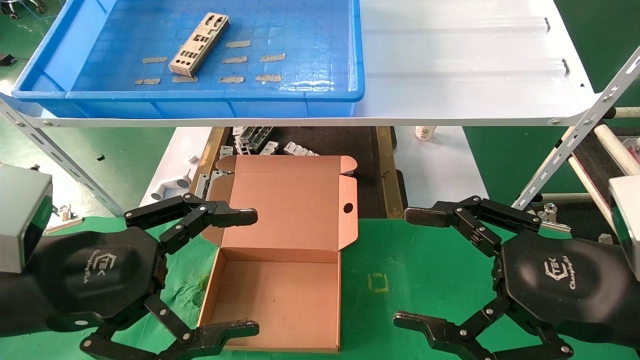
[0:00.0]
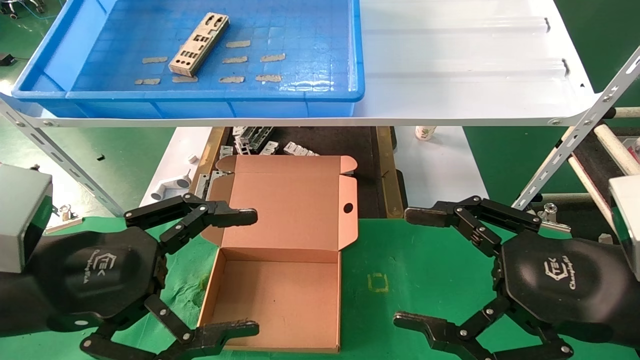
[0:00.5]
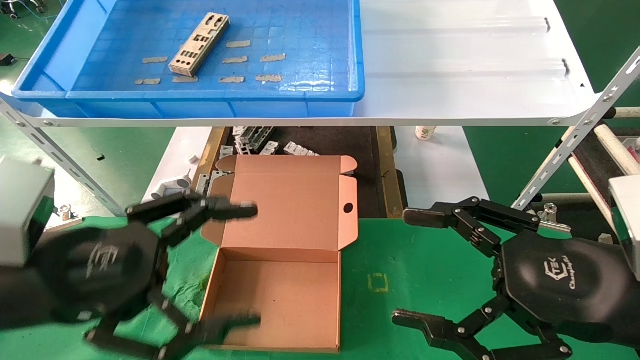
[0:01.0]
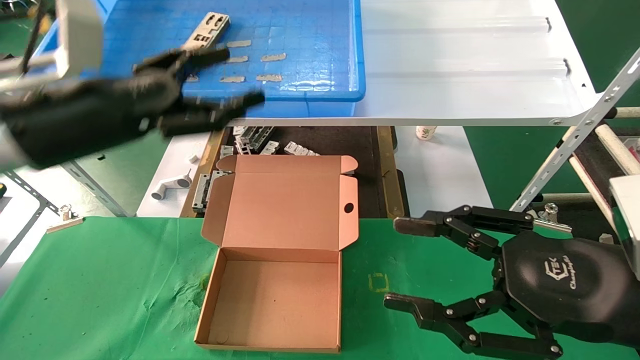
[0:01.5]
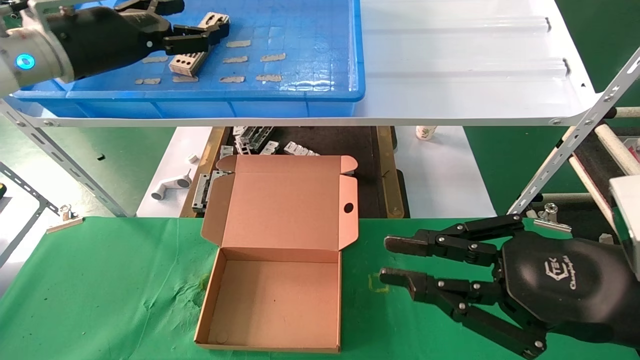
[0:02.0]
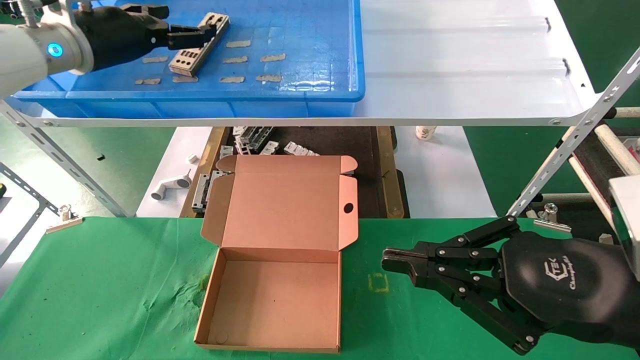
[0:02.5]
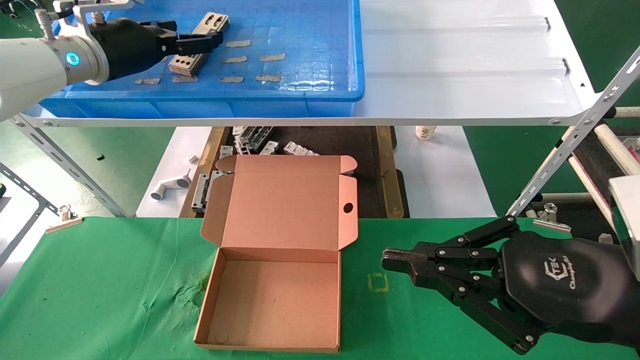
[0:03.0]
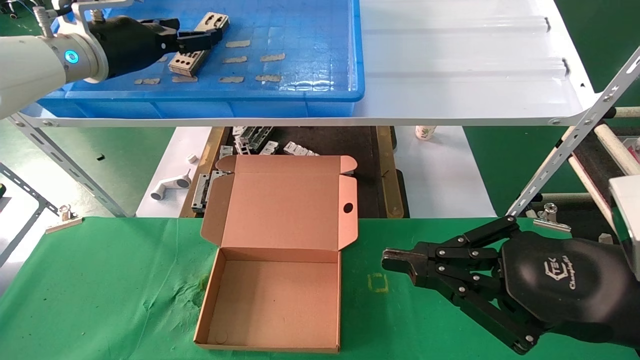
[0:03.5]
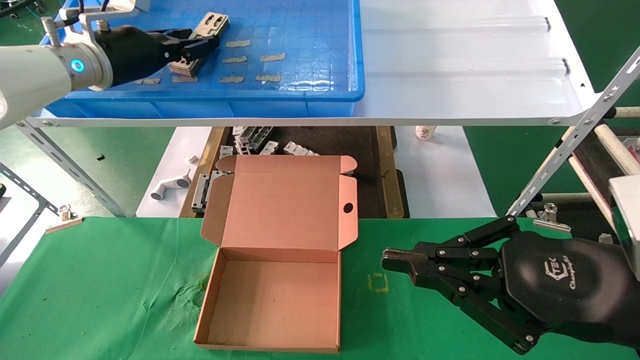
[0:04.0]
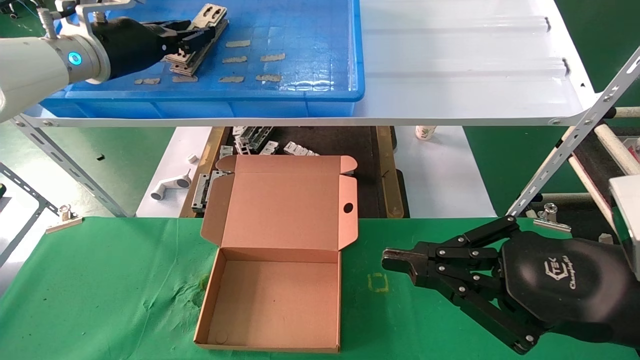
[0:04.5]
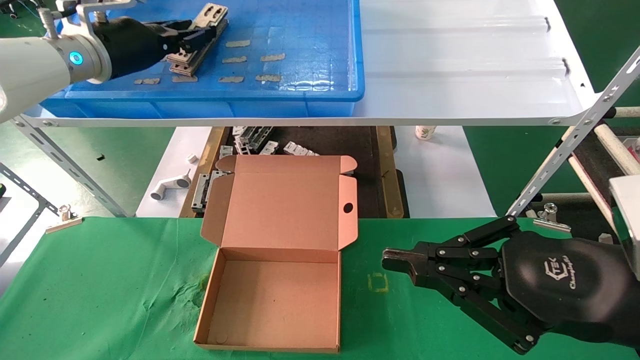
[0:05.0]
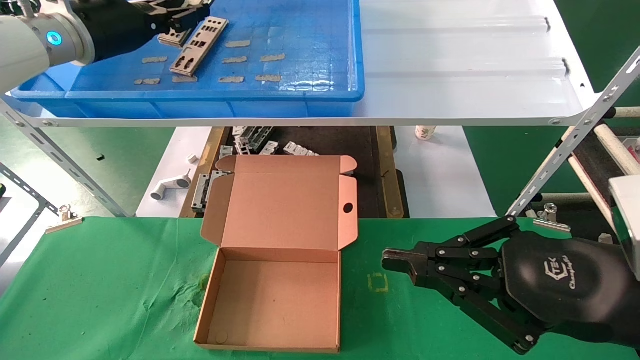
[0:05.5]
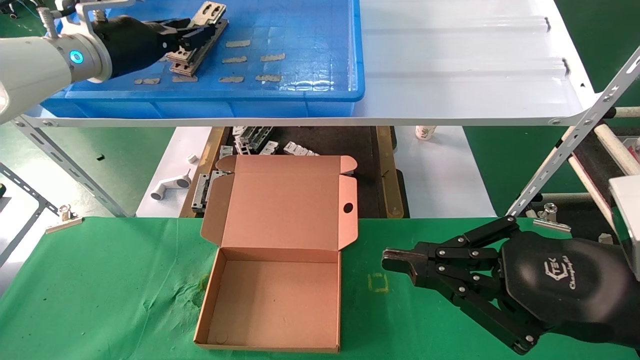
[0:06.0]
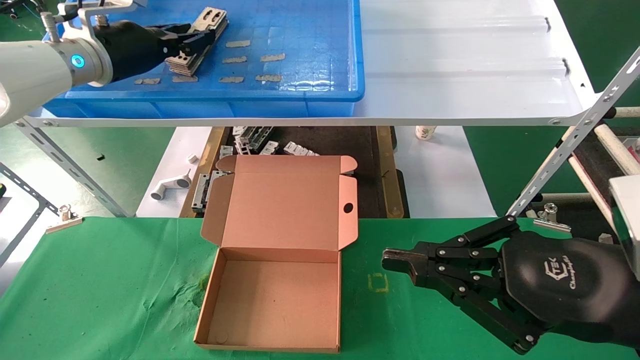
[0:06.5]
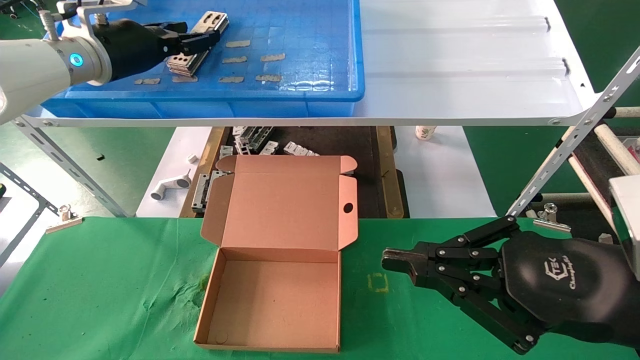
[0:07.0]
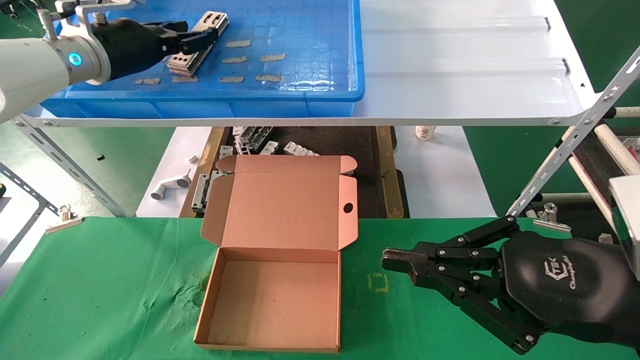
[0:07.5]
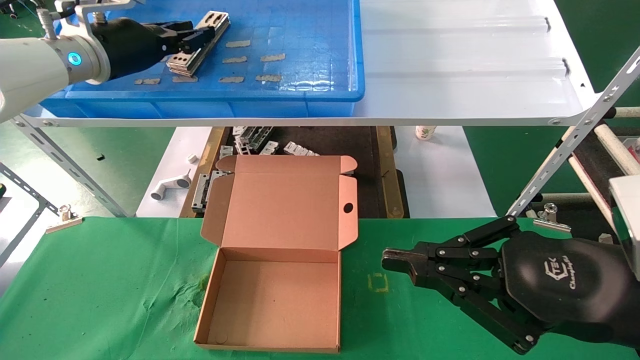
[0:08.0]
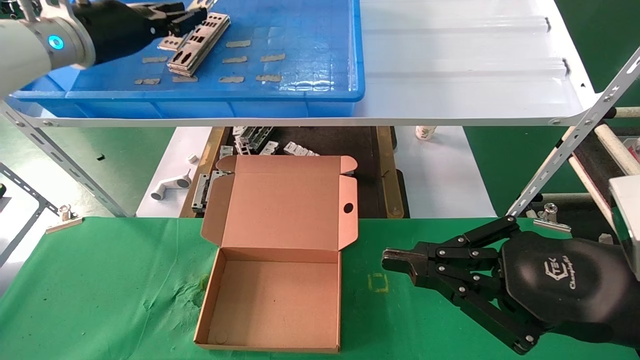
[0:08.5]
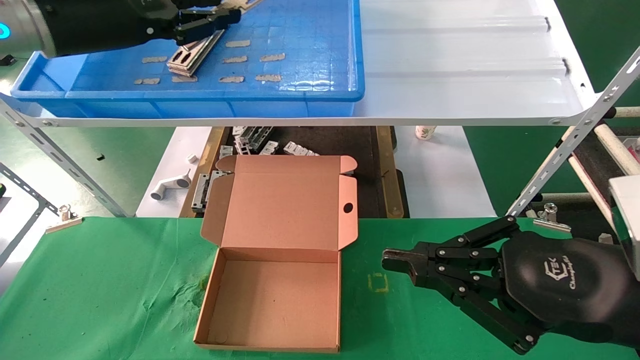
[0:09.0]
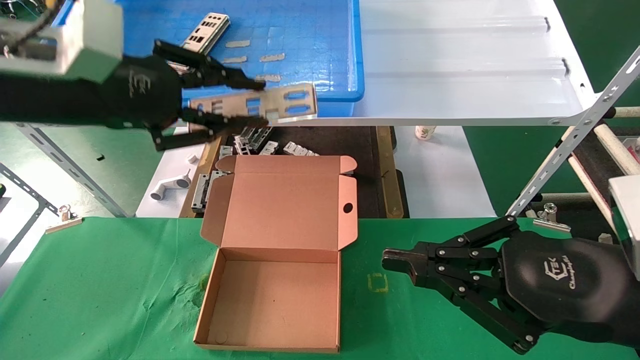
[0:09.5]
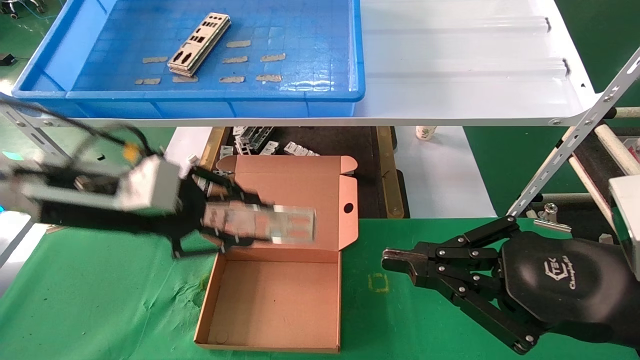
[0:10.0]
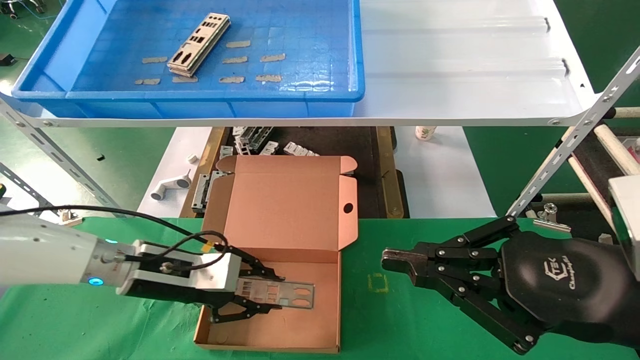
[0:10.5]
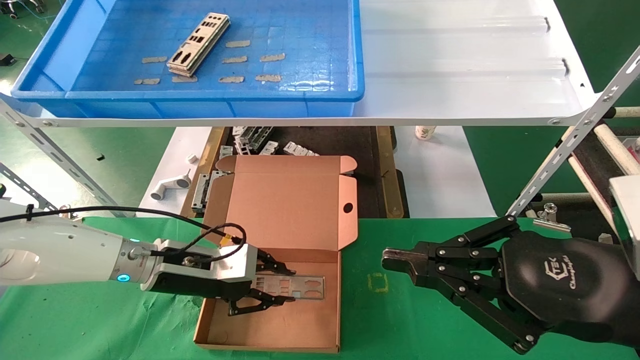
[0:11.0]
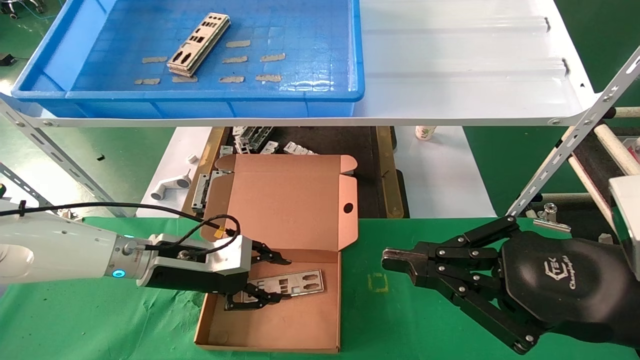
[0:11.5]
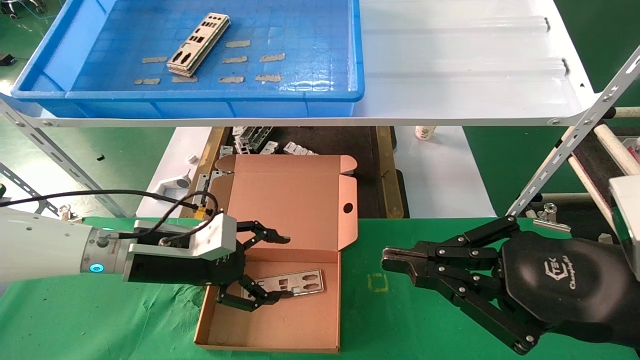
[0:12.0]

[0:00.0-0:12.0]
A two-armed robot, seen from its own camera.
Task of the whole recording: pick up the parts on the tray and put them in the cardboard box.
Step, 0:01.5 to 0:08.0: Pick up the IO bracket from the container box.
Step, 0:08.5 to 0:11.0: Place the IO bracket into the ingredient slot.
0:00.0 to 0:02.0: The left gripper shifts some 25 cm forward and upward. Meanwhile the right gripper closes.
0:02.0 to 0:04.0: The left gripper heads forward, covering roughly 5 cm, and closes.
0:04.0 to 0:06.0: The left gripper closes.
0:06.0 to 0:08.0: Both grippers stay about where they are.
0:08.0 to 0:10.0: The left gripper travels downward and backward by approximately 20 cm.
0:10.0 to 0:12.0: The left gripper heads downward and forward, covering about 15 cm, and opens.

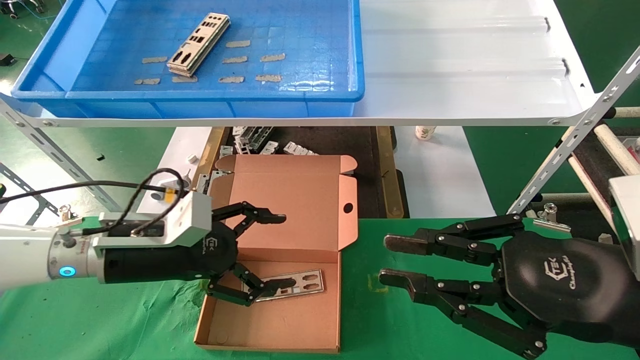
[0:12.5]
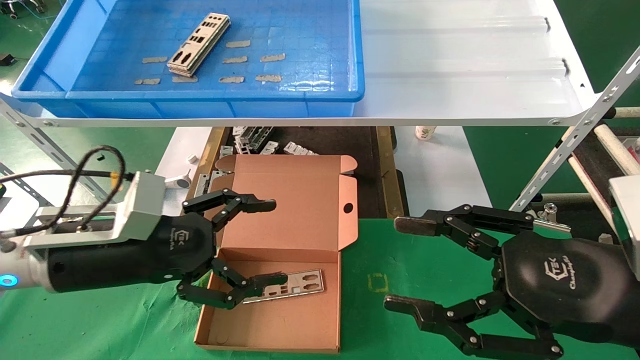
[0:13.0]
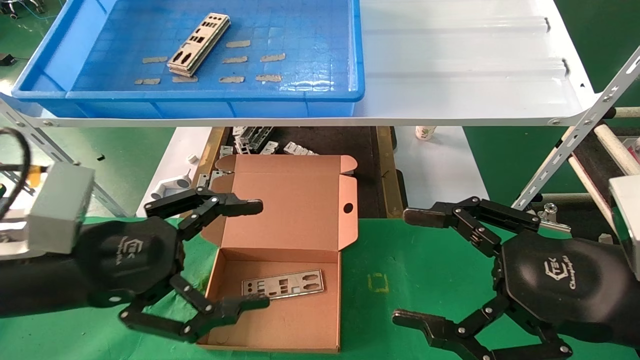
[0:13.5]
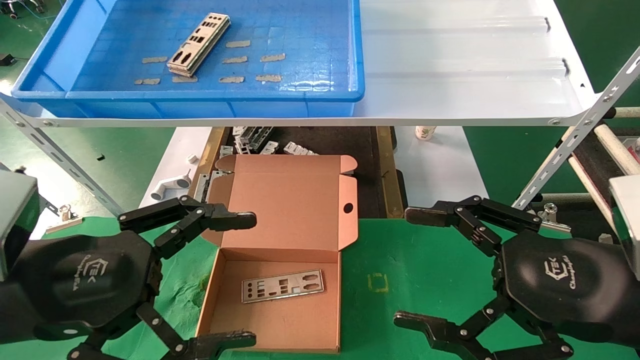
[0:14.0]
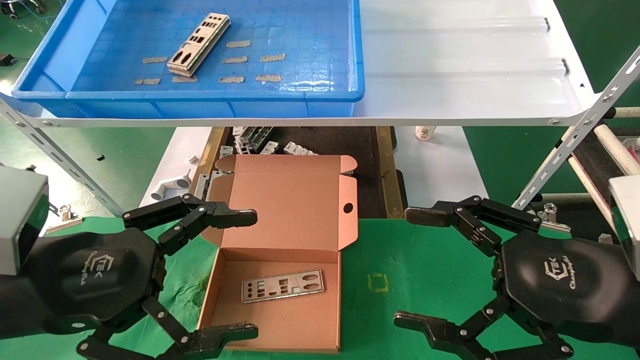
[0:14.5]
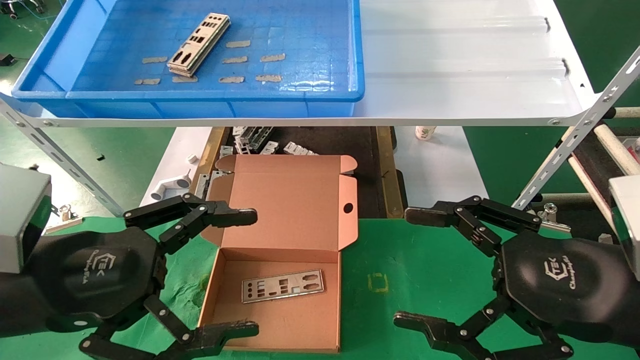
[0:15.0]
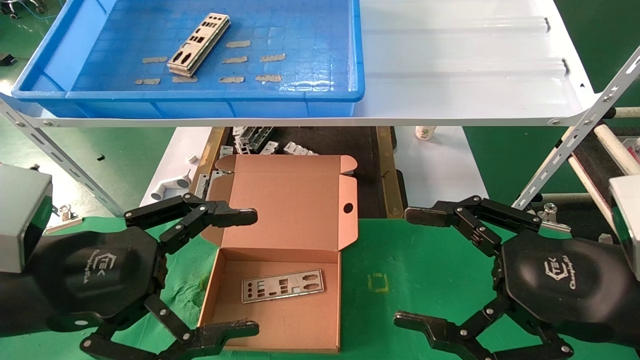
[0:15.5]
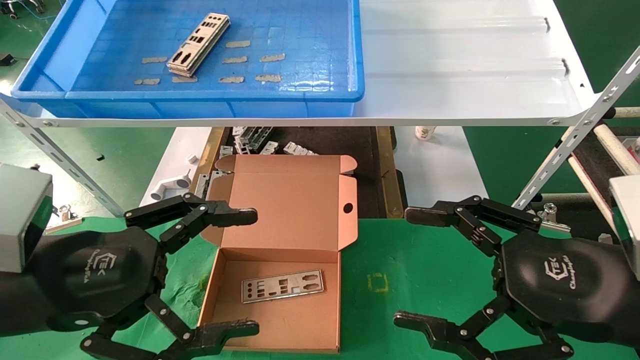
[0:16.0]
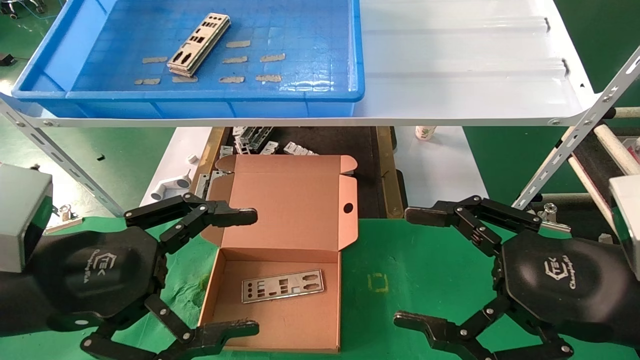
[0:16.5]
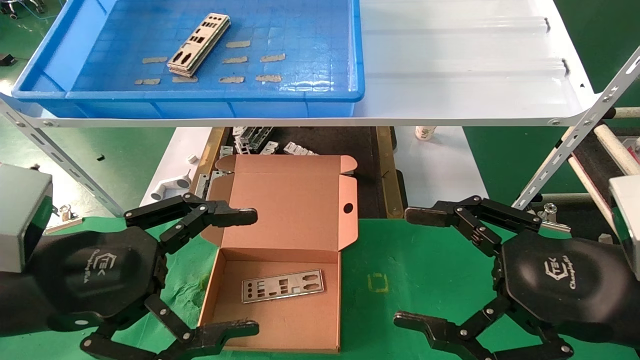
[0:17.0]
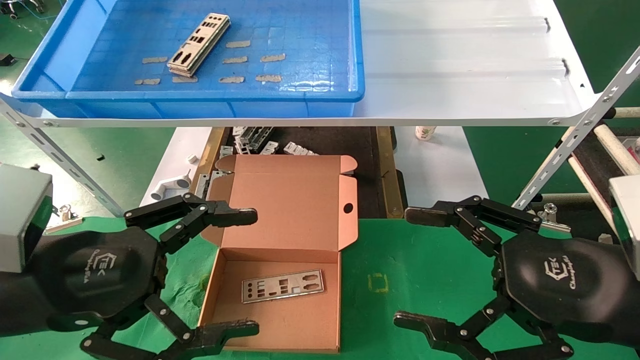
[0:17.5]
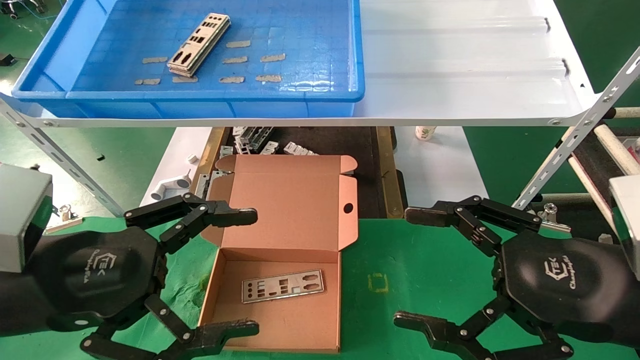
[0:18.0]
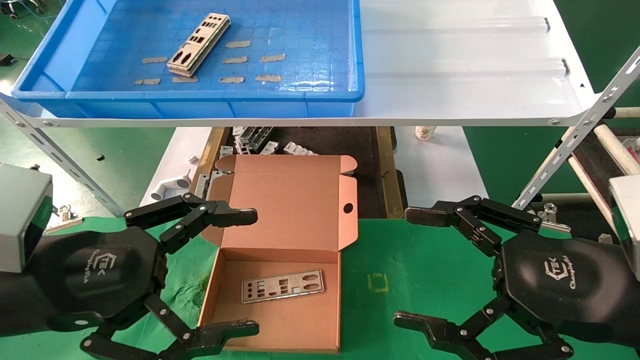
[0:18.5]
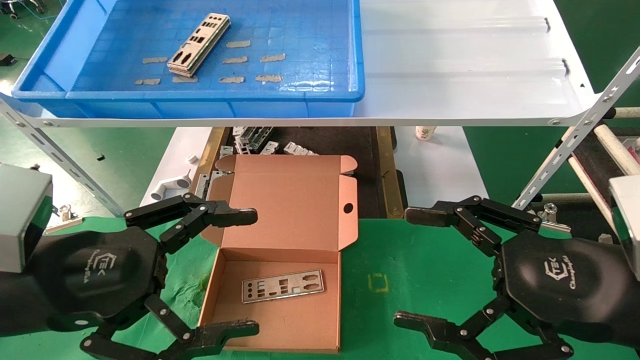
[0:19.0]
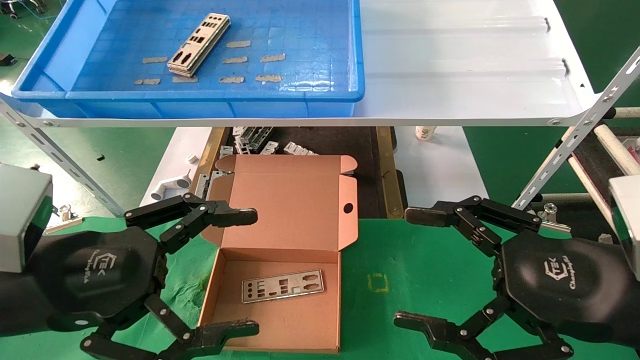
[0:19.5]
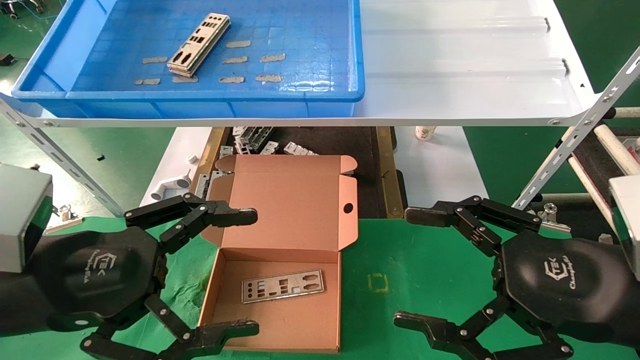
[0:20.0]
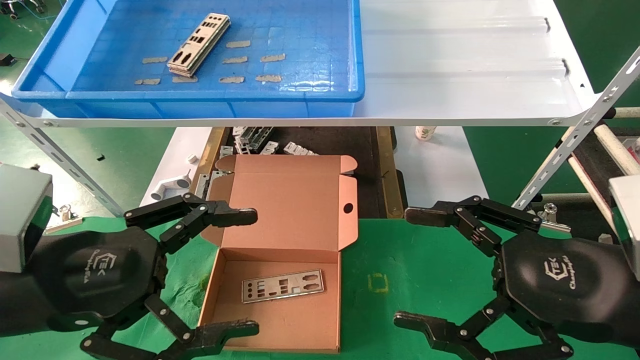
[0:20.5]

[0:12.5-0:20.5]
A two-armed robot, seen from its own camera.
Task of the whole recording: pick up the parts on the tray and put them in the cardboard box.
0:12.5 to 0:14.5: The right gripper opens up. Meanwhile the left gripper heads backward and upward, covering about 15 cm.
0:14.5 to 0:20.5: Neither gripper changes place.
